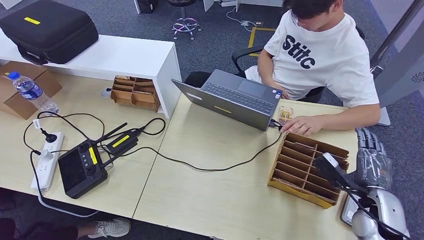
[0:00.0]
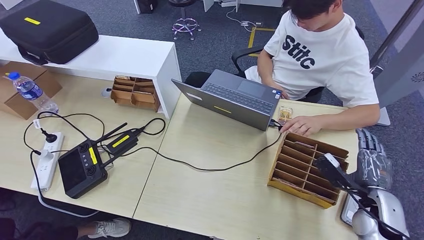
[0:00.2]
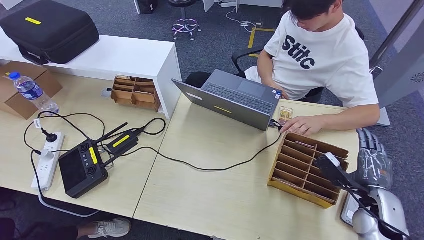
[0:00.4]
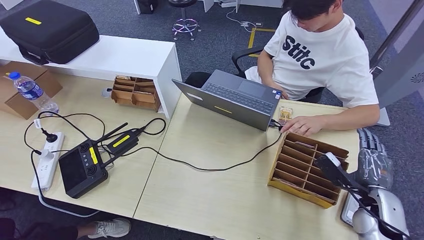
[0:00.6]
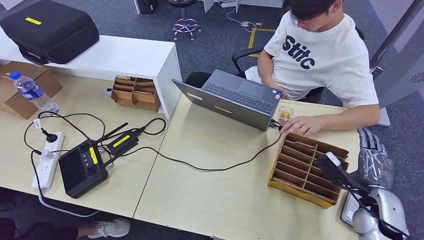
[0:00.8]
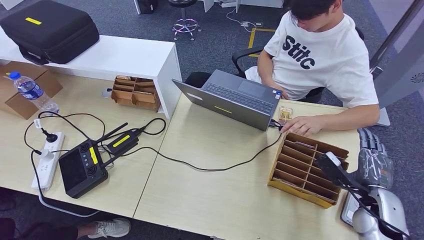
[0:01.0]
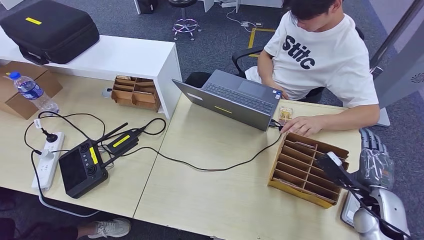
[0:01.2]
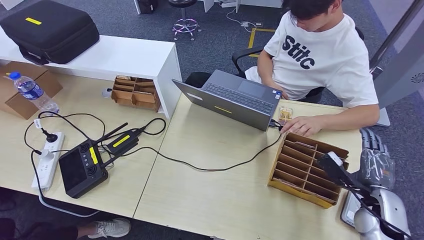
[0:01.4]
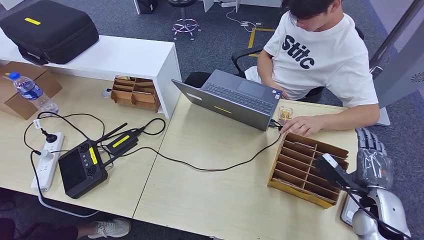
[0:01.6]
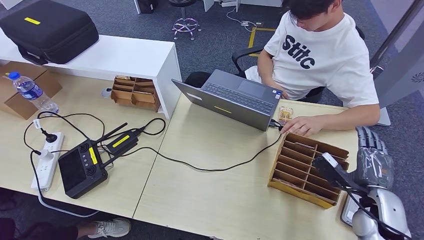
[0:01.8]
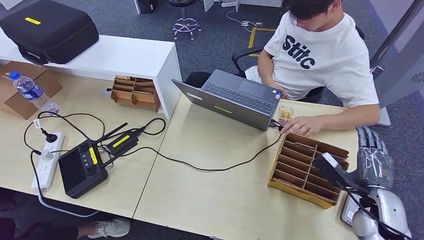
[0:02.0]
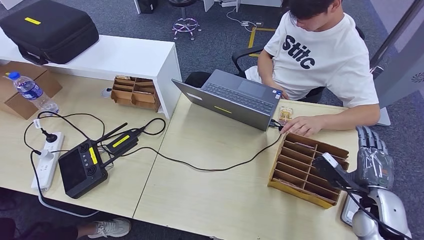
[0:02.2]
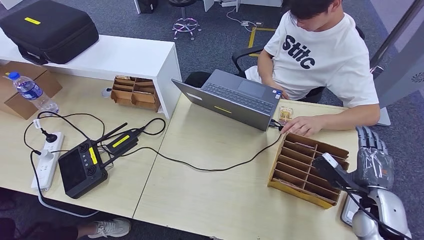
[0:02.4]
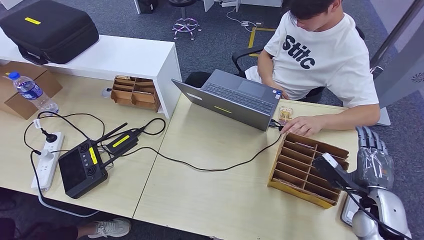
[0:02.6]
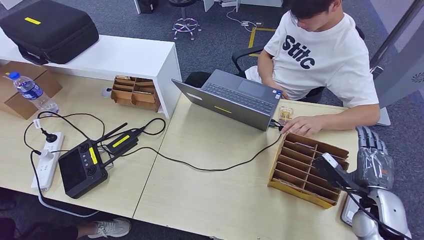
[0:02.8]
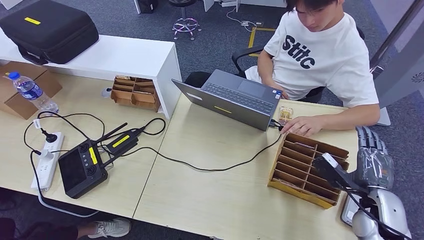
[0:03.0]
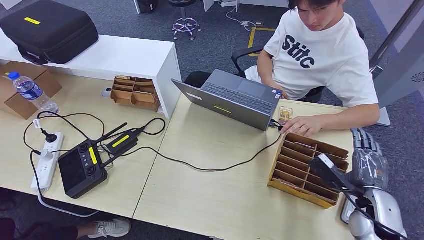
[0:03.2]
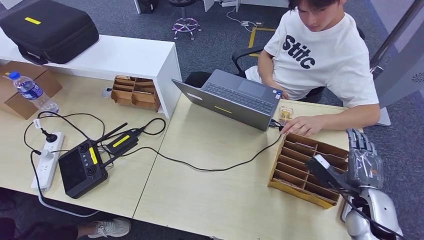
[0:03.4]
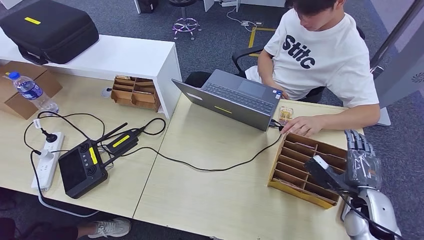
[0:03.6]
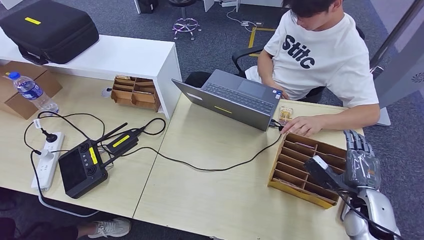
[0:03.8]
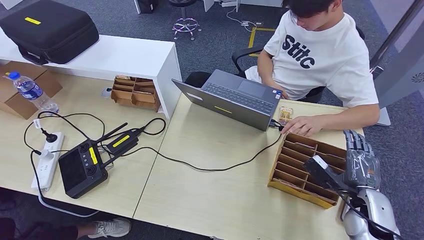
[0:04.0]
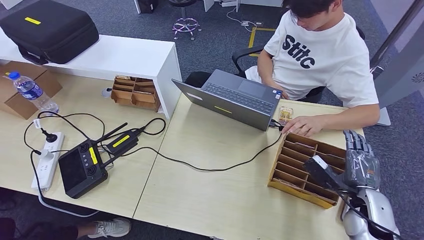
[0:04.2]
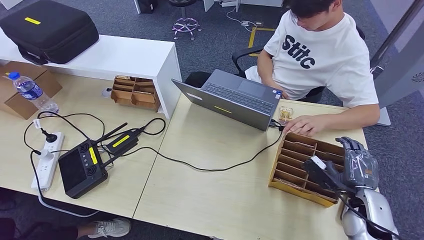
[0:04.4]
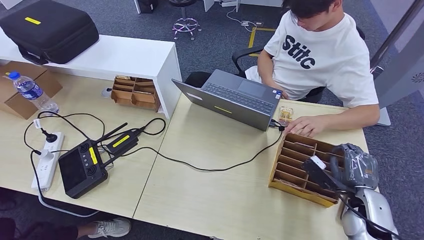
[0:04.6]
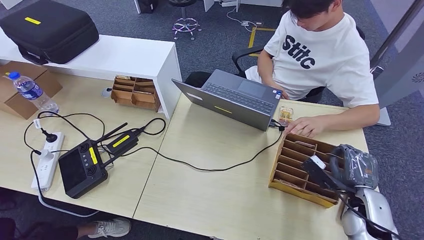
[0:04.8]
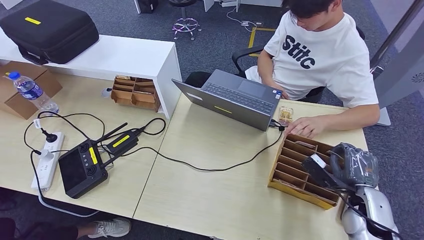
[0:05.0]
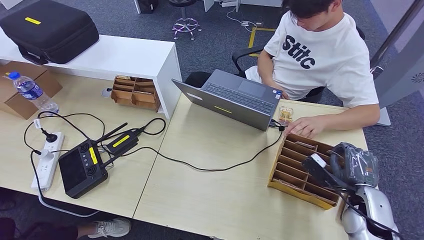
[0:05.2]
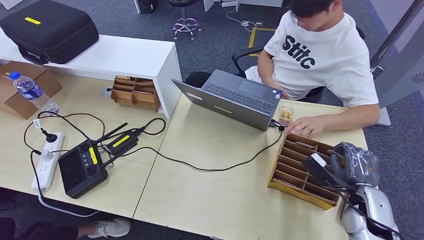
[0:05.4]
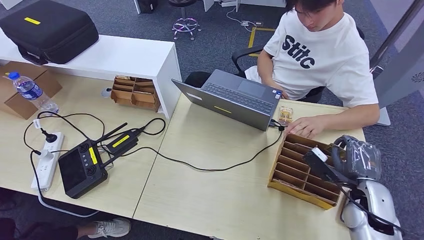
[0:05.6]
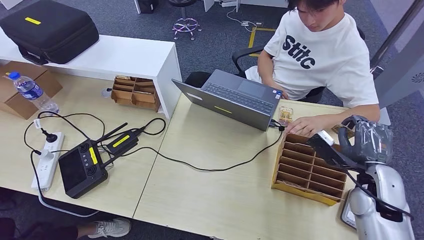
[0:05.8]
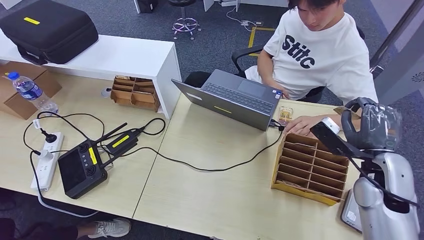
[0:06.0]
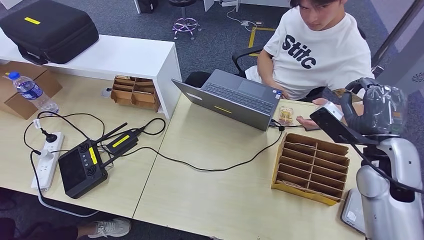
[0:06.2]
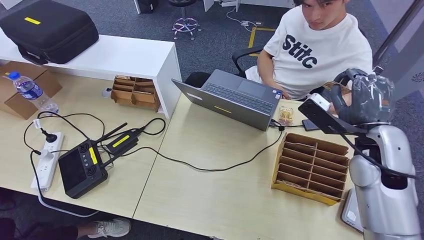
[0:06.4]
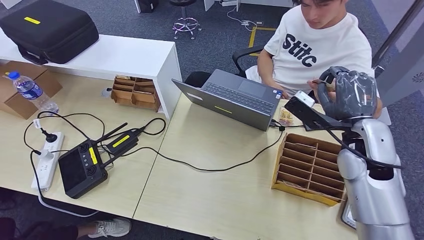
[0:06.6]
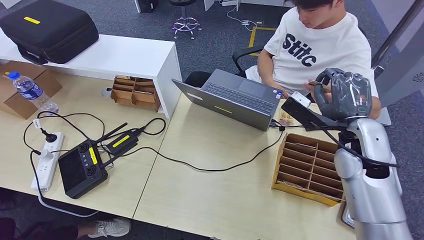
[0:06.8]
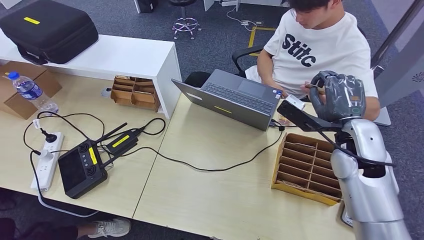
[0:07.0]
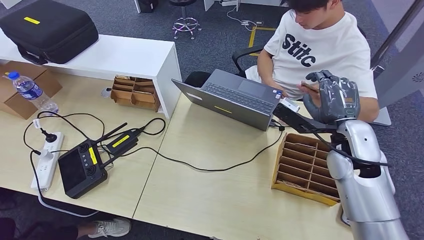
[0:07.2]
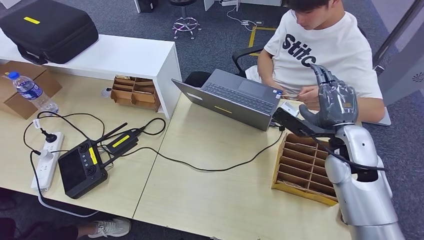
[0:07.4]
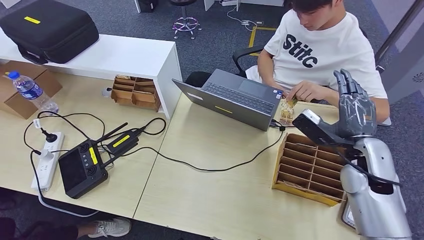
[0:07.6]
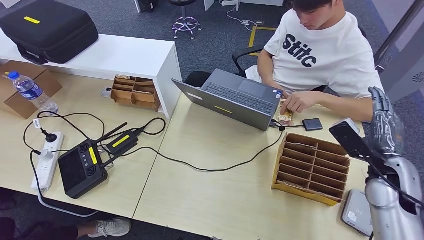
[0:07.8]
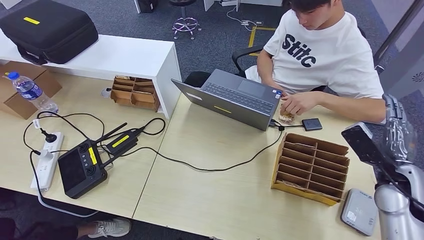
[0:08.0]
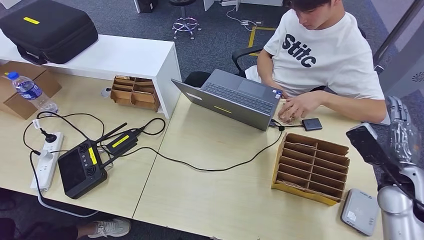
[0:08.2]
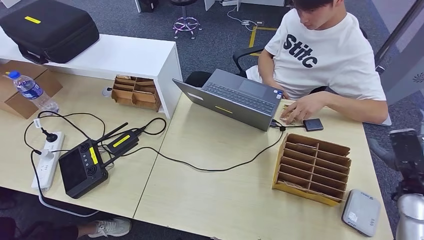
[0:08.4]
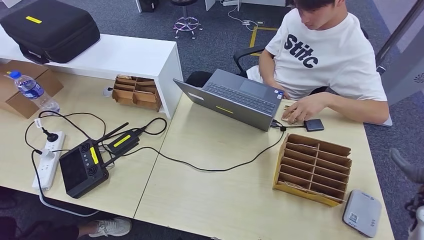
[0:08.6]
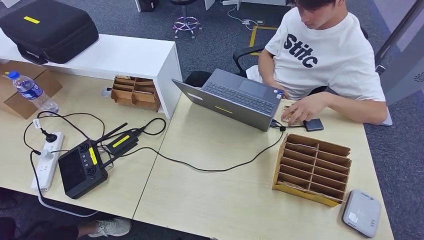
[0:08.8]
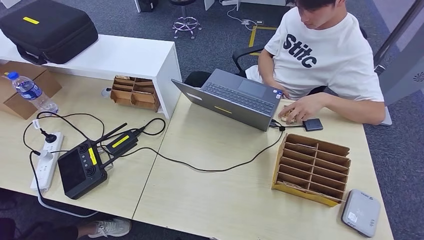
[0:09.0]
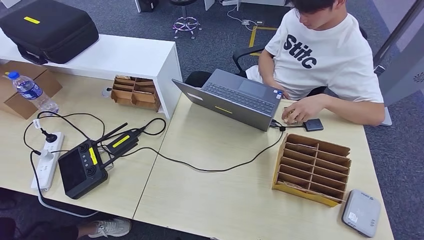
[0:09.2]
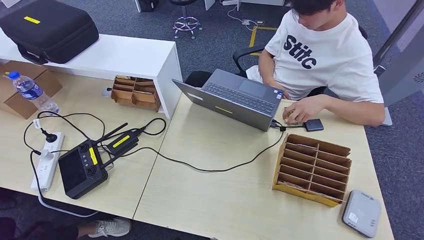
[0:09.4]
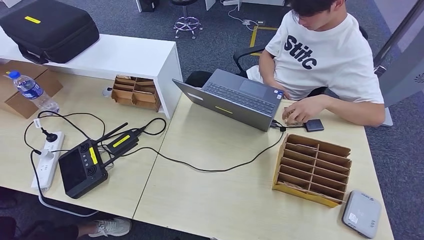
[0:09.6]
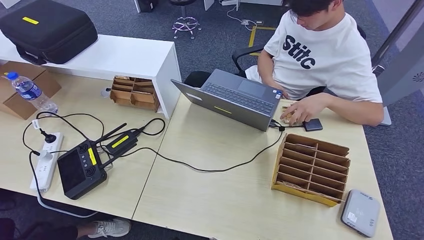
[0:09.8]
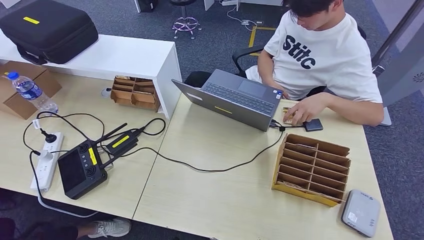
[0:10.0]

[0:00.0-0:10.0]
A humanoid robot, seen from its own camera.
Step, 0:00.0 to 0:06.6: Pick up the room key from the key card box.
Step, 0:06.8 to 0:10.0: Hand the room key to the person.
0:00.0 to 0:04.2: The hands move only a little.
0:04.2 to 0:05.8: The right hand shifts roughly 5 cm upward.
0:05.8 to 0:07.2: The right hand shifts approximately 10 cm to the left and upward.
0:07.2 to 0:08.6: The right hand shifts roughly 25 cm to the right and downward.
0:08.6 to 0:10.0: The right hand shifts some 35 cm backward and downward.
